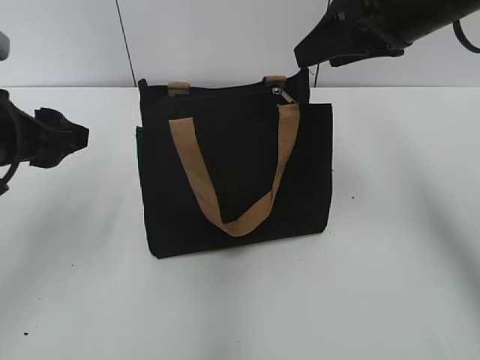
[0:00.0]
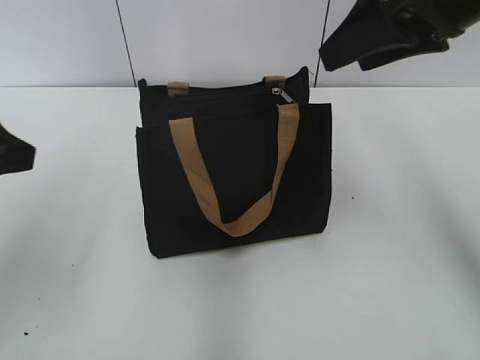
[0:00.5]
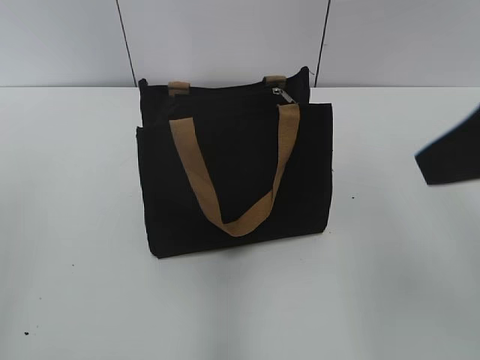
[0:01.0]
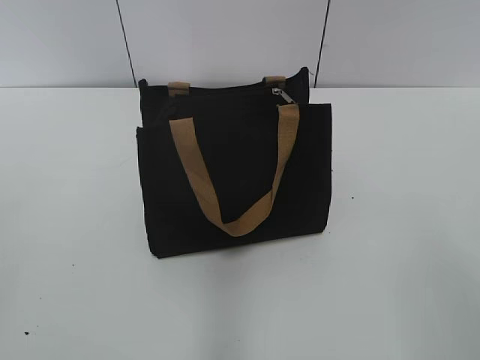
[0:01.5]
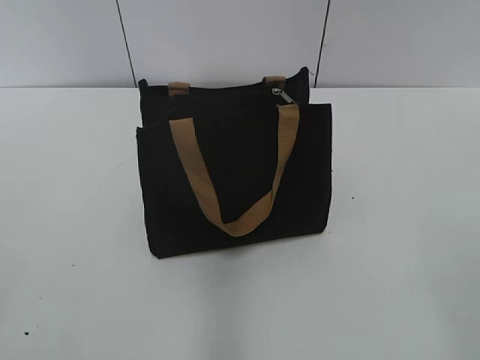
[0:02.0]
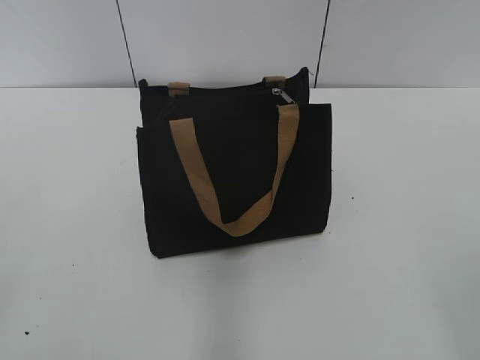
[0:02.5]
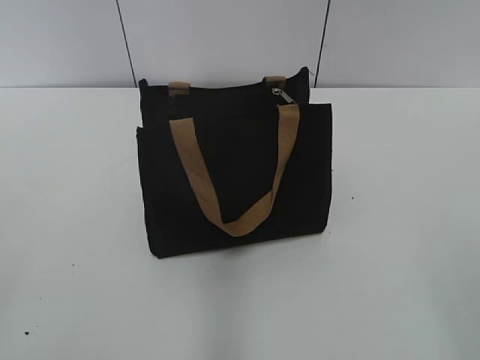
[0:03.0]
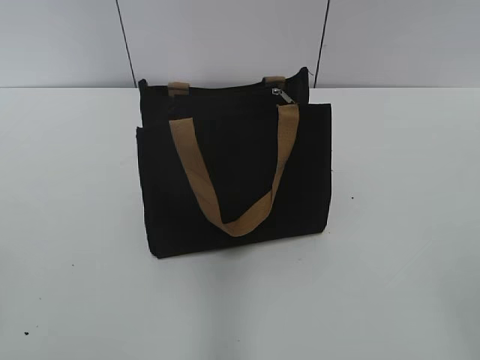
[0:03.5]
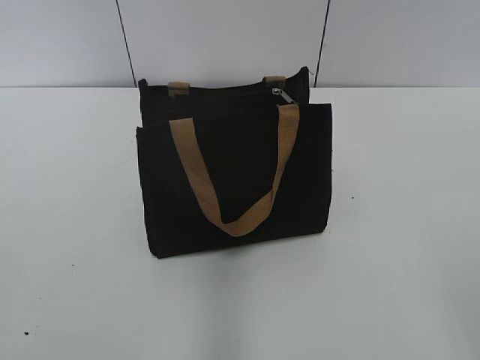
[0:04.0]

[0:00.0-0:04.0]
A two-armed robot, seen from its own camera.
0:00.0 to 0:02.0: The two grippers go approximately 30 cm backward.
